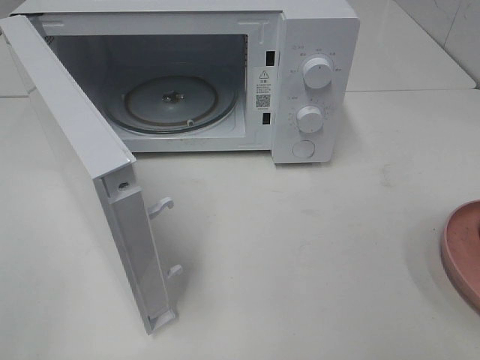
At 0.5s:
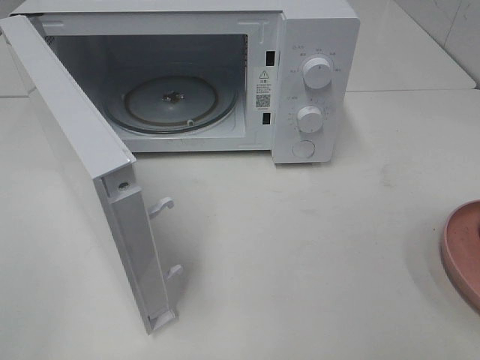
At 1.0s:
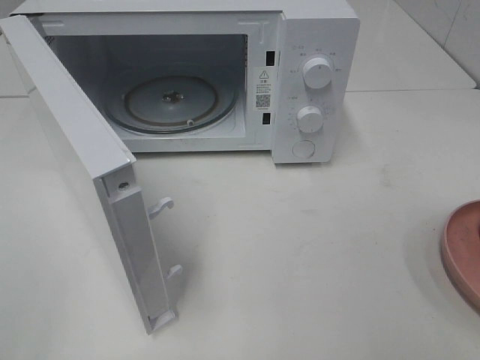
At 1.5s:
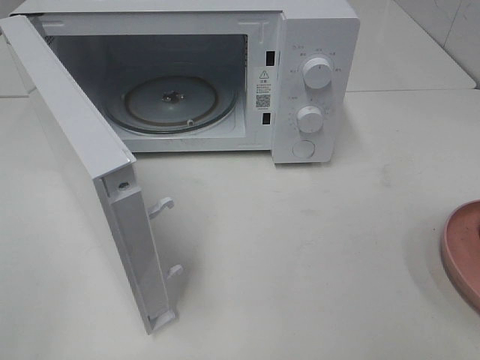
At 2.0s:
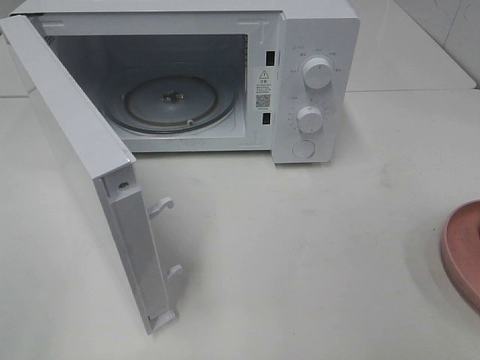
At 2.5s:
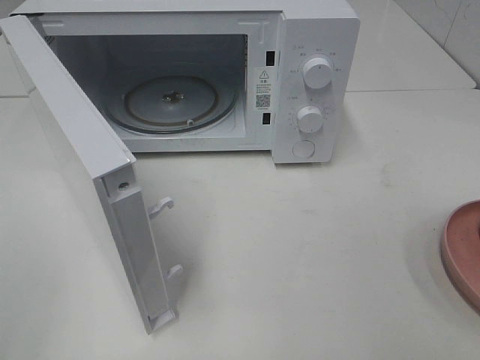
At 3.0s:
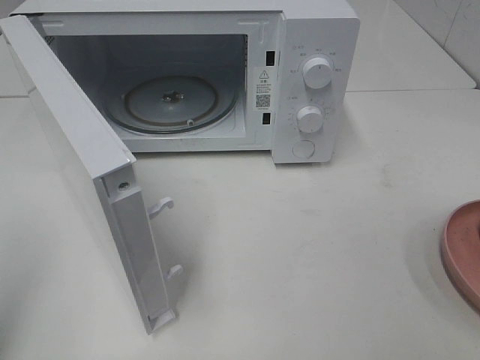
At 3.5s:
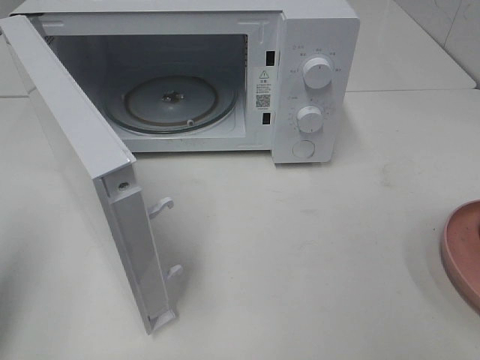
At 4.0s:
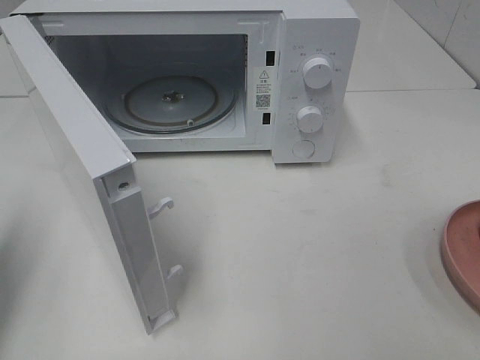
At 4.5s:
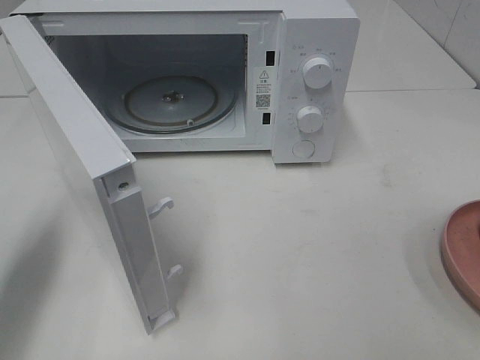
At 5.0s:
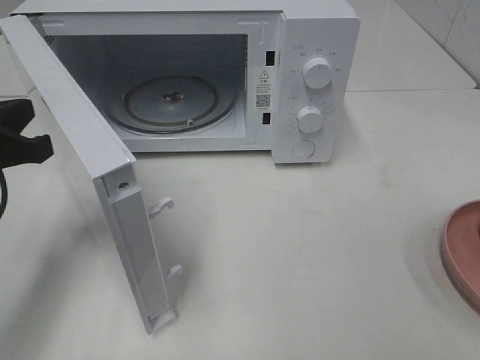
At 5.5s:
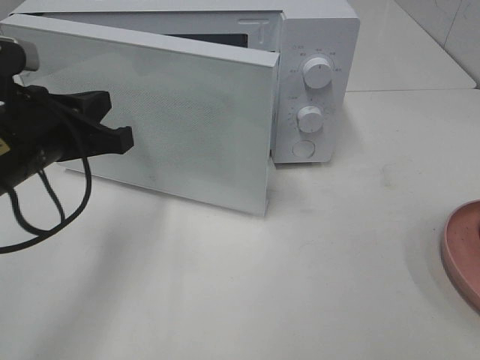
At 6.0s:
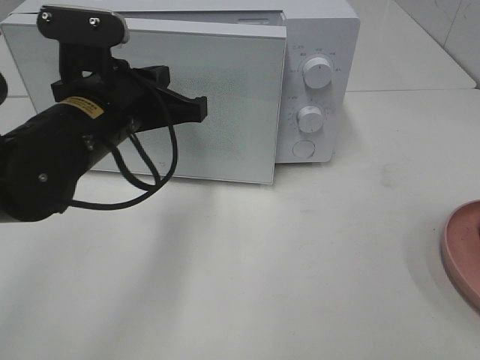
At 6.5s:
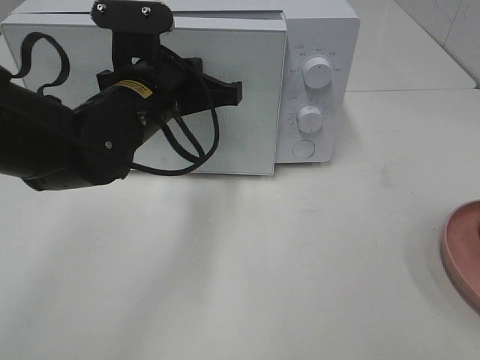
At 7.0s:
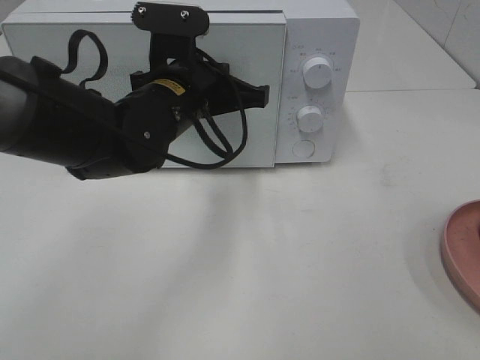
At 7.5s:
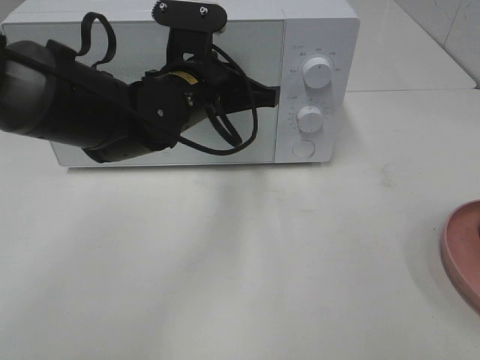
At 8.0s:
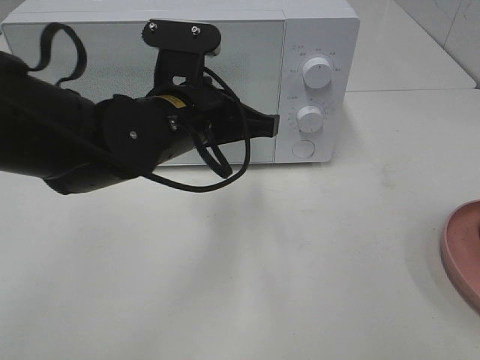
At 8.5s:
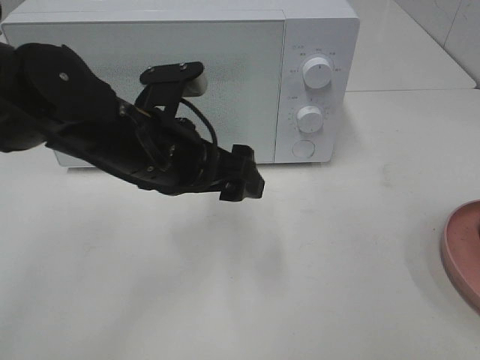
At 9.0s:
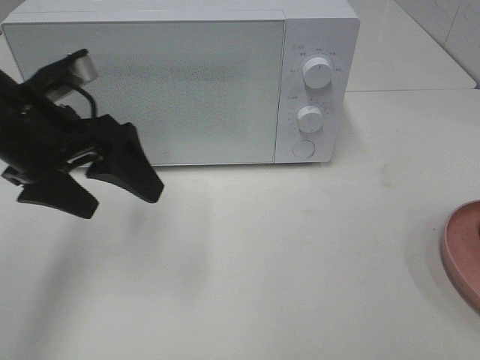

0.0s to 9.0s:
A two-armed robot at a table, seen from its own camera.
Task of the whole recording: Heat the burger.
Step, 0.0s to 8.0s: Left hand: close the microwave door.
0.0s to 2.0s: Both grippers stay about where they are.
2.0s to 4.5s: The left gripper travels forward by roughly 20 cm, and closes its fingers.
4.5s to 7.0s: The left gripper shifts some 25 cm to the right and forward.
7.0s to 9.0s: The left gripper shifts approximately 15 cm to the left and backward, and opens.

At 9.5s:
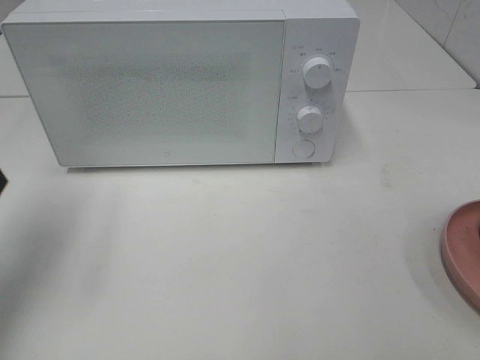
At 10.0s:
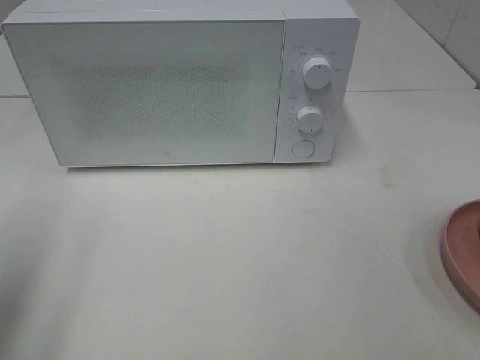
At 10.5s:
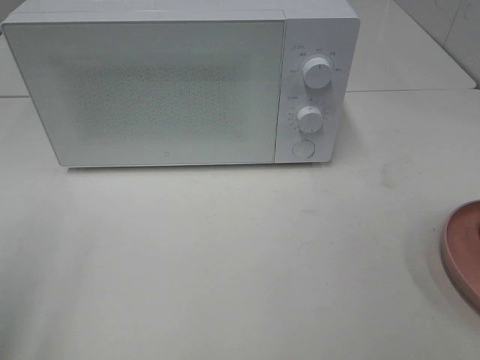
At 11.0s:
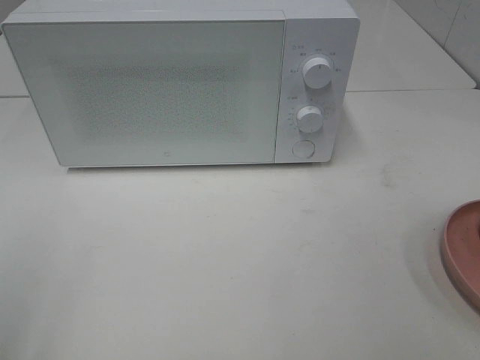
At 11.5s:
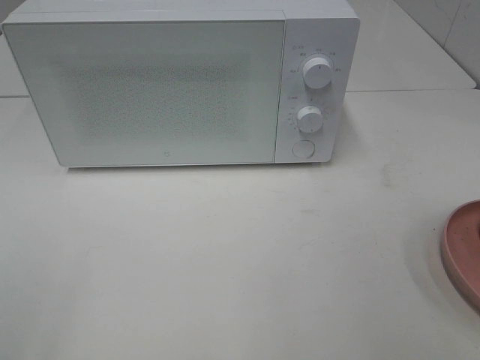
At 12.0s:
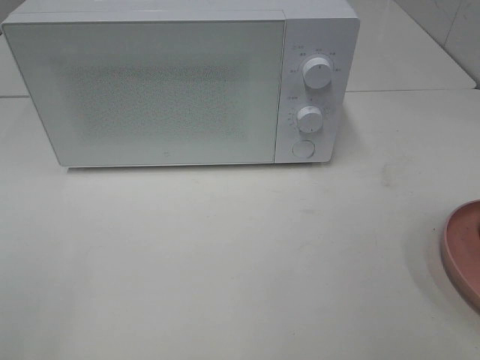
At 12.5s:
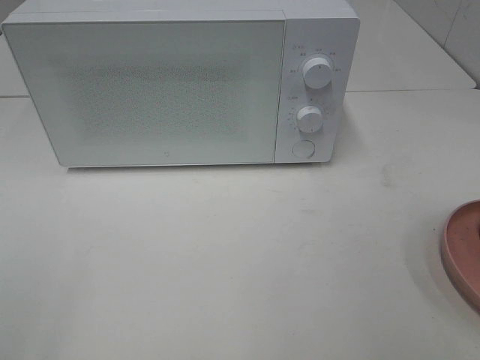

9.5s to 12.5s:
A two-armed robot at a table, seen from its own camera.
Task of the whole recording: Heat the burger.
9.5s to 11.0s: The left gripper moves backward, about 20 cm.

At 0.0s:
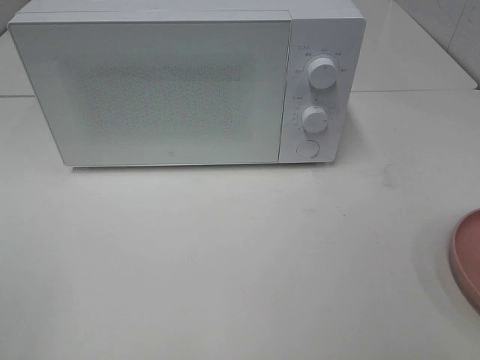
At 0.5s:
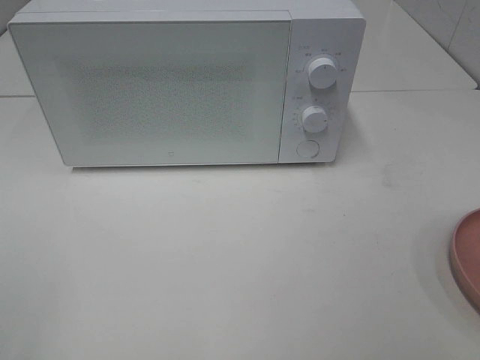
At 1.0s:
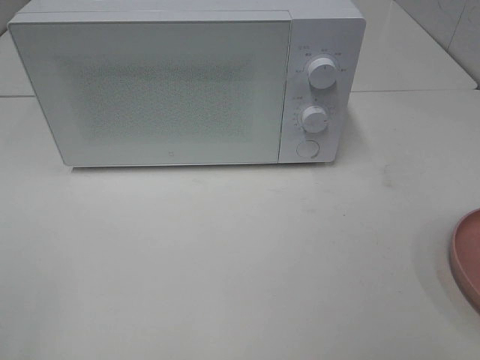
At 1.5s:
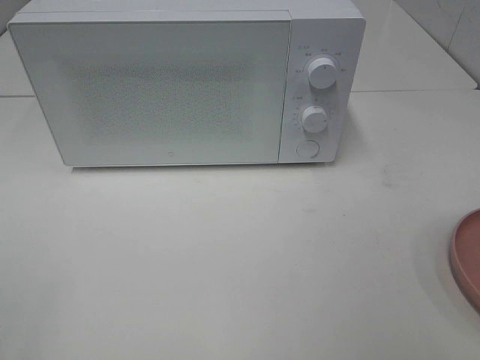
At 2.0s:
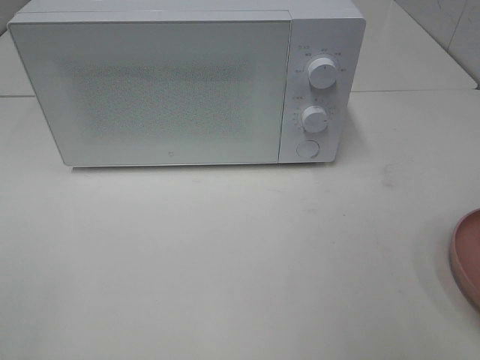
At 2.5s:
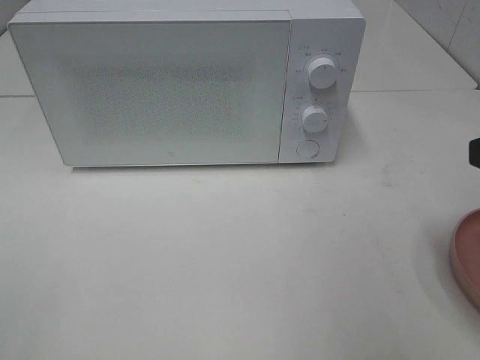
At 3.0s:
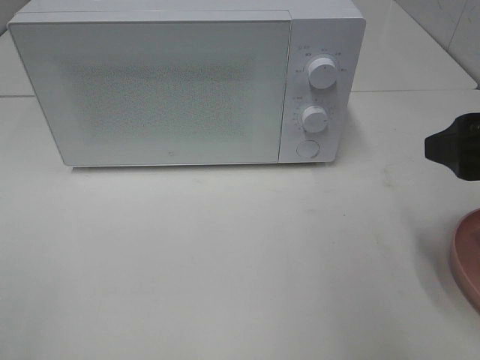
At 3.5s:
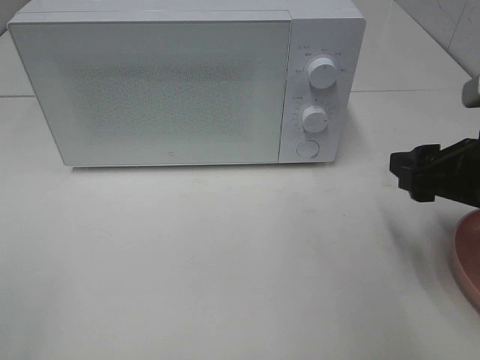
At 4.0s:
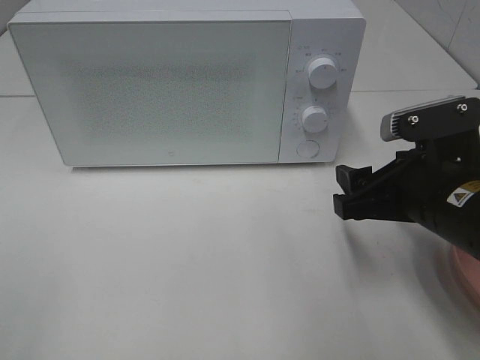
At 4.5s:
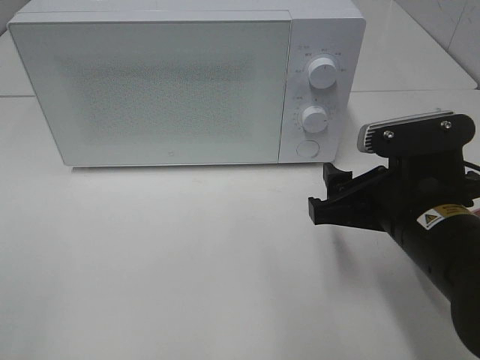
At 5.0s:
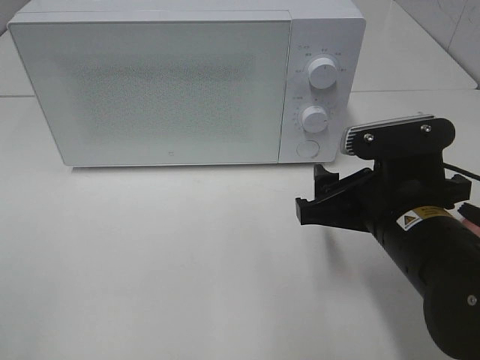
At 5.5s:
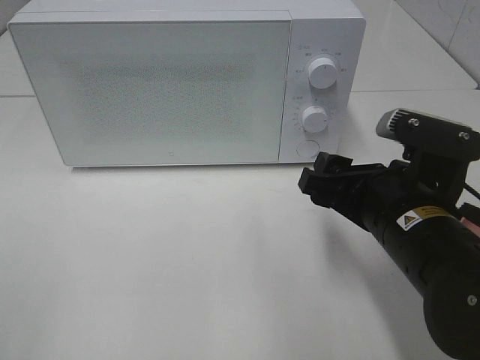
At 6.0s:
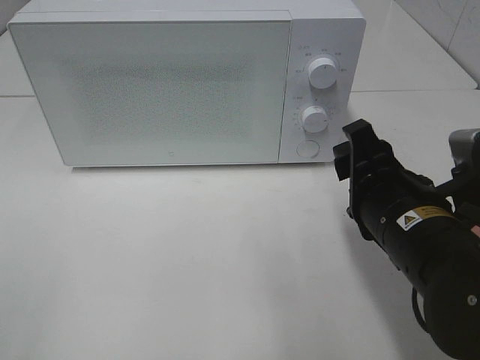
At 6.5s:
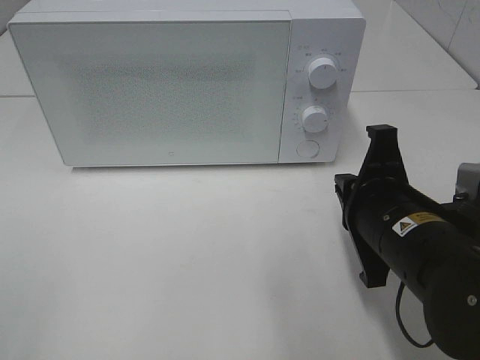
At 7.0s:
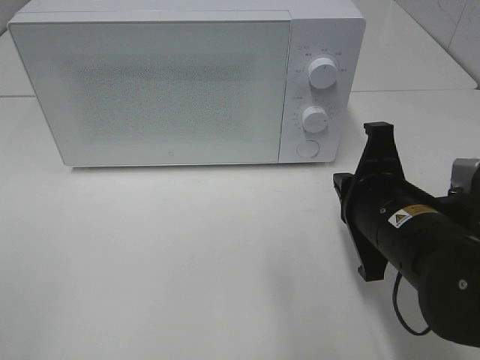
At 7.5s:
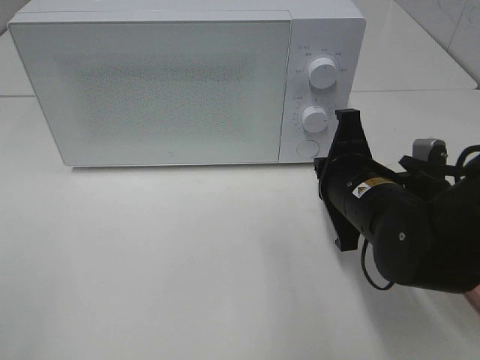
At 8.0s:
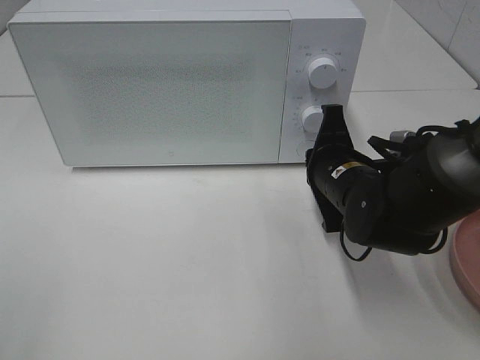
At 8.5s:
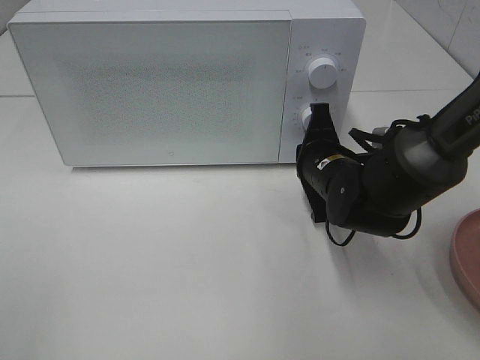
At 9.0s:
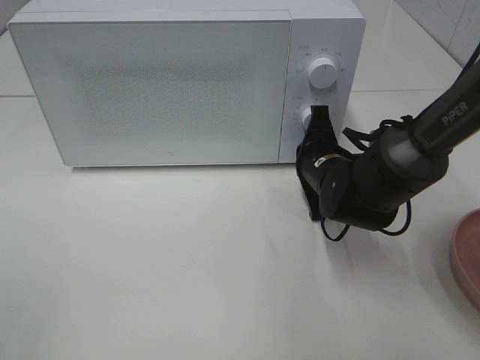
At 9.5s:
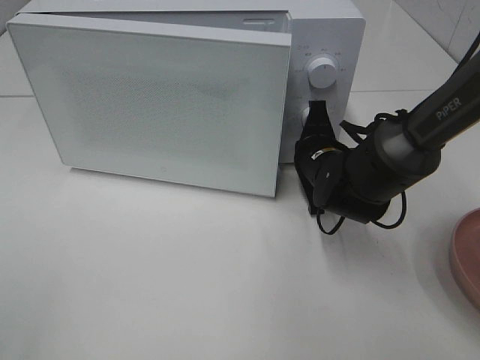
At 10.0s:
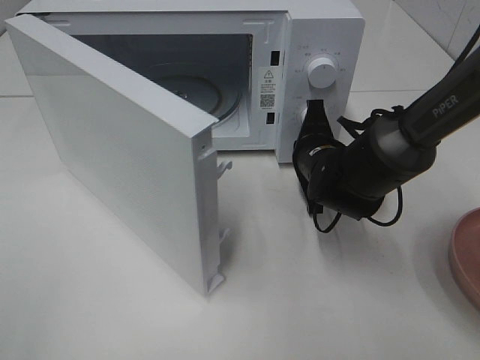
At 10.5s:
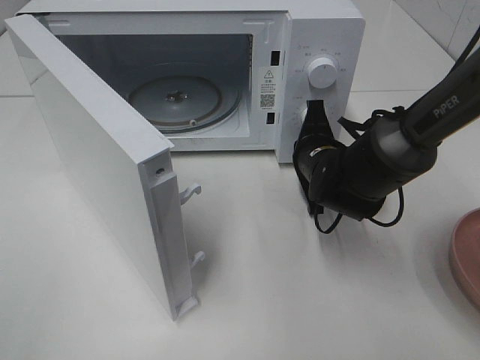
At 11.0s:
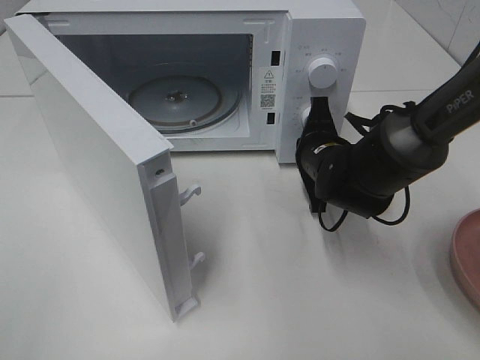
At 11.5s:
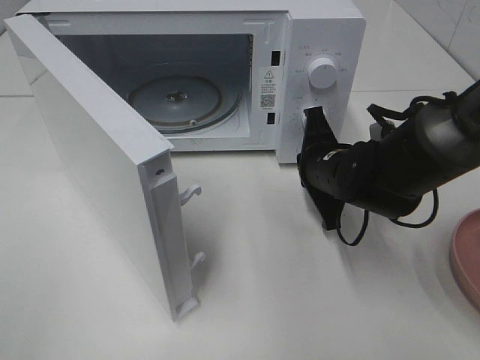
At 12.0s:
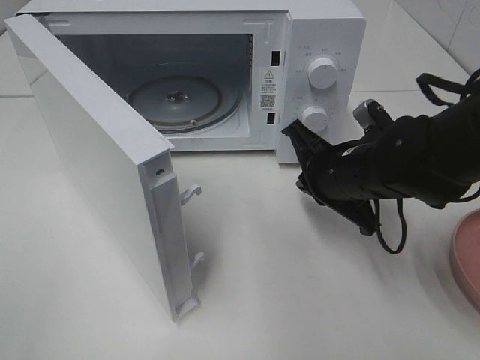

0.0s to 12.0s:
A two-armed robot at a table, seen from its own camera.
Task of the whole recording: Heat the burger.
Step, 0.0s to 11.0s: Right hand: press the switch.
2.0s to 4.0s: The right gripper goes about 20 cm downward, forward and to the left.
6.0s to 8.0s: The right gripper heads forward, covering some 10 cm, and closes.
8.0s to 10.0s: The right gripper moves forward, approximately 5 cm.
10.0s to 12.0s: The right gripper travels backward by approximately 5 cm.

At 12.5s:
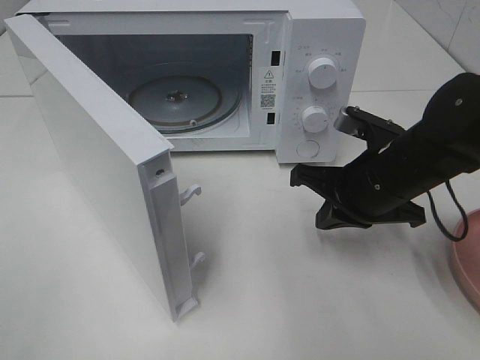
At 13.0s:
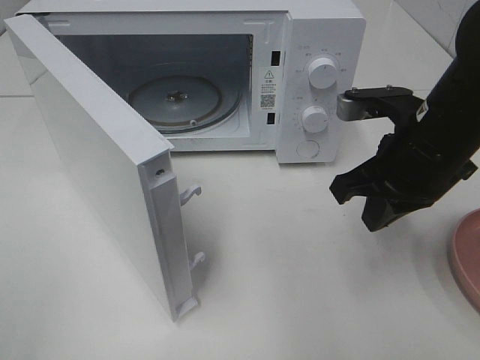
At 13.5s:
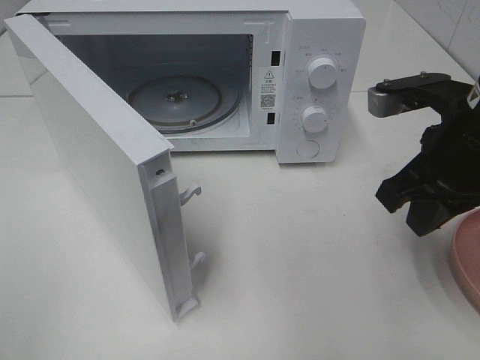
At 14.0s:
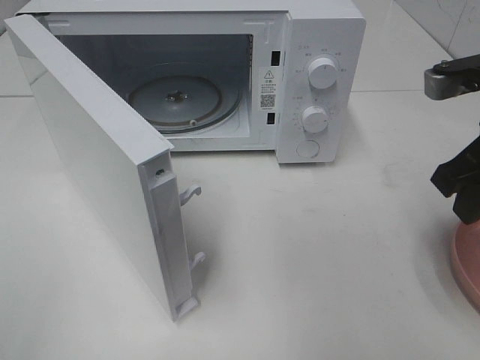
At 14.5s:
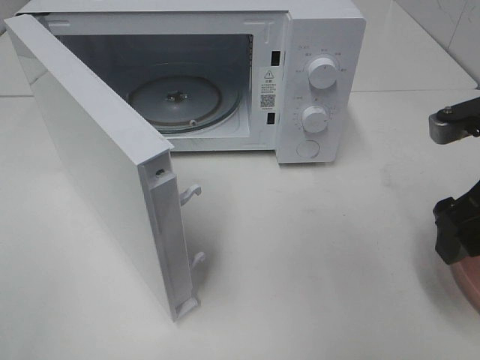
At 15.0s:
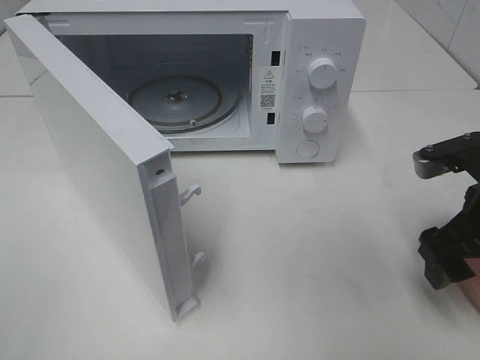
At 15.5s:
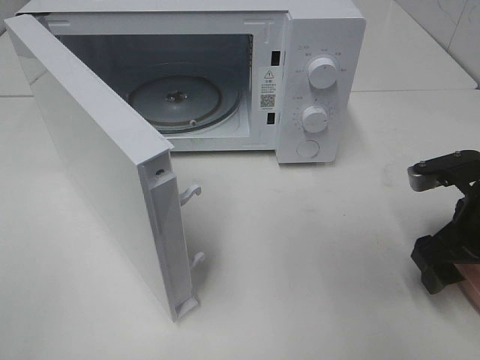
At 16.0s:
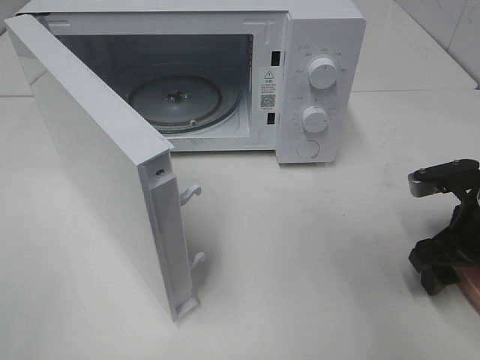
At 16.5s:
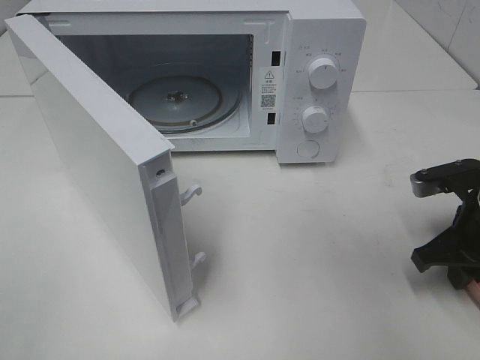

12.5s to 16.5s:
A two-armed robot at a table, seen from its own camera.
Task of the whole recording: Heat the burger.
12.5s to 14.5s: The right gripper goes some 10 cm to the right, upward and backward, and opens its fingers.
14.5s to 16.5s: The right gripper is displaced downward by about 10 cm, and closes.
